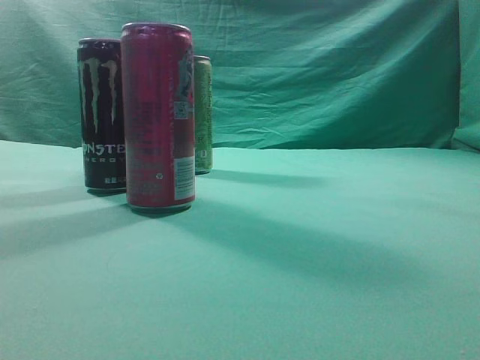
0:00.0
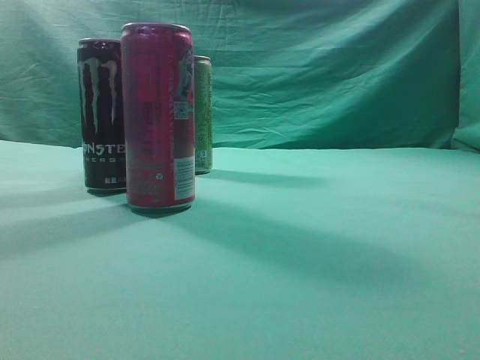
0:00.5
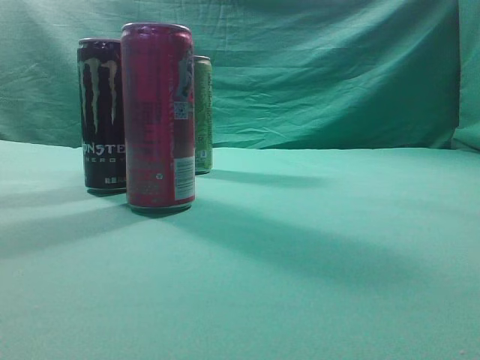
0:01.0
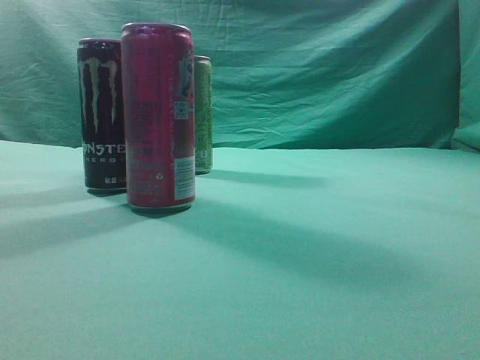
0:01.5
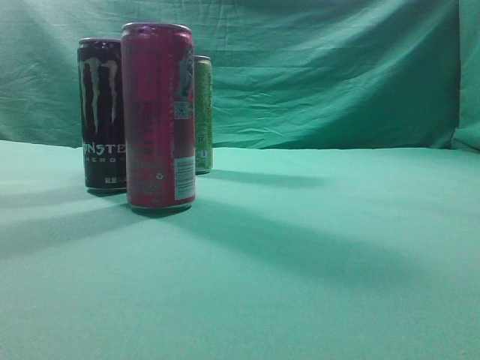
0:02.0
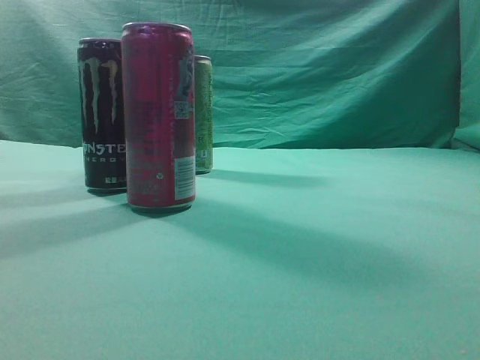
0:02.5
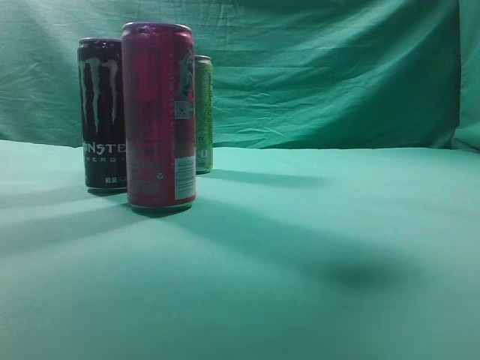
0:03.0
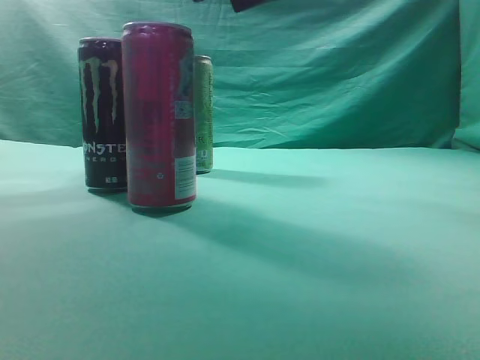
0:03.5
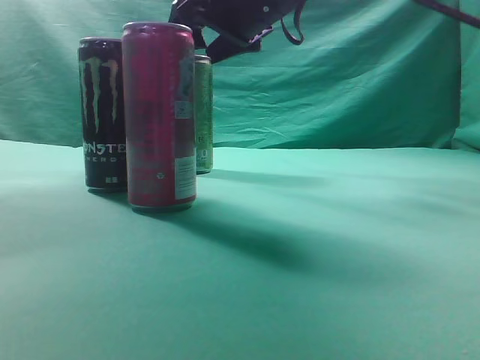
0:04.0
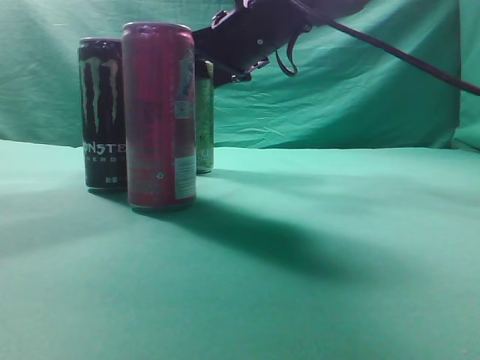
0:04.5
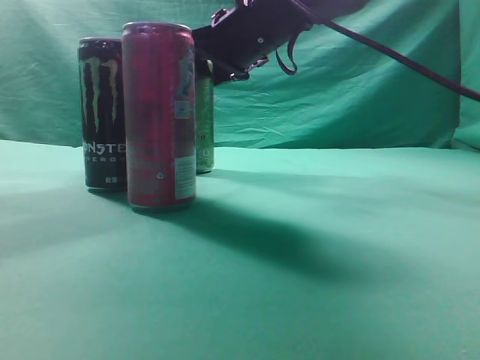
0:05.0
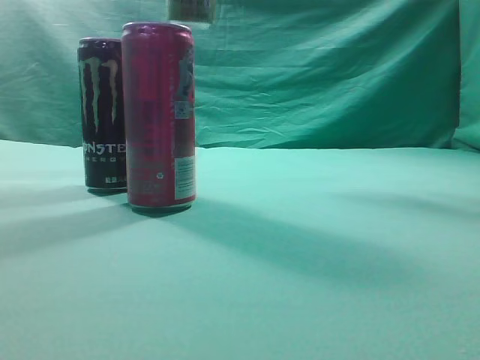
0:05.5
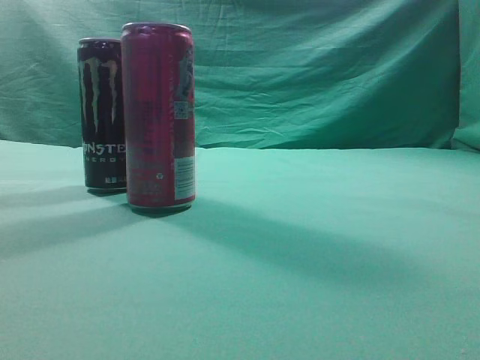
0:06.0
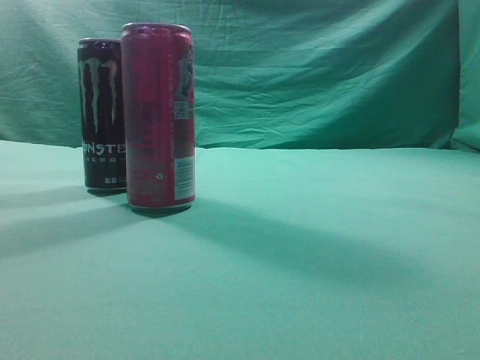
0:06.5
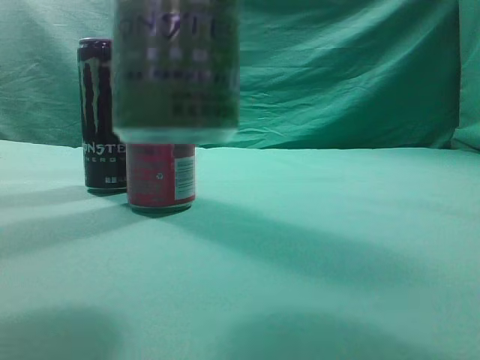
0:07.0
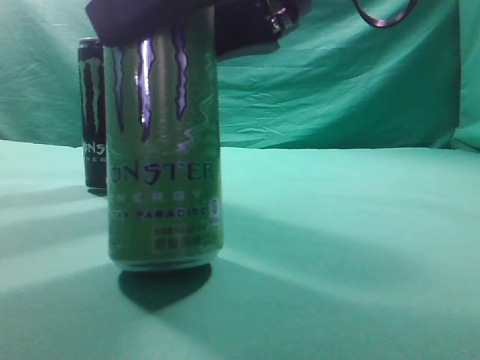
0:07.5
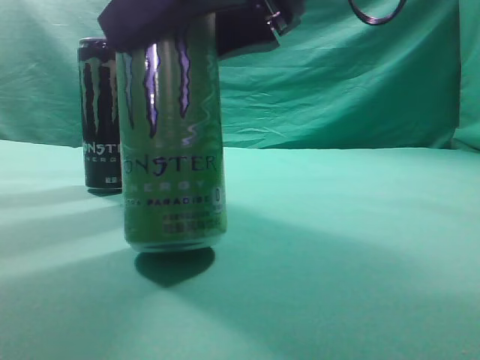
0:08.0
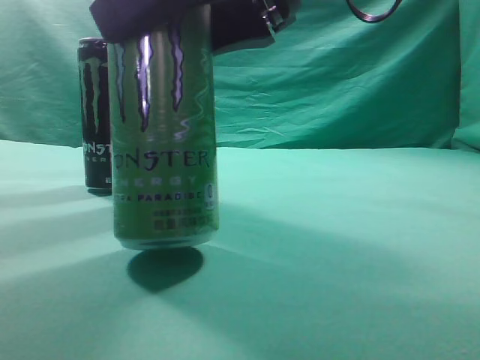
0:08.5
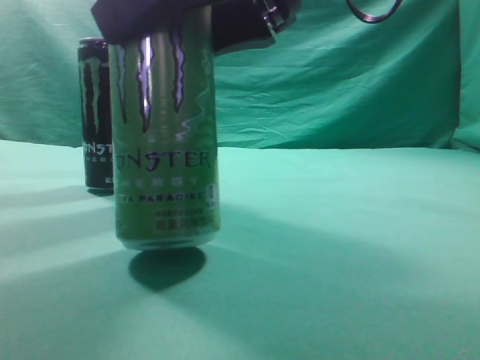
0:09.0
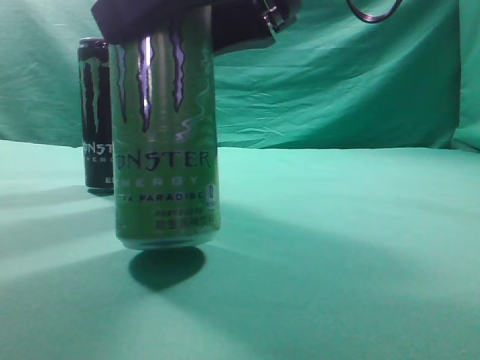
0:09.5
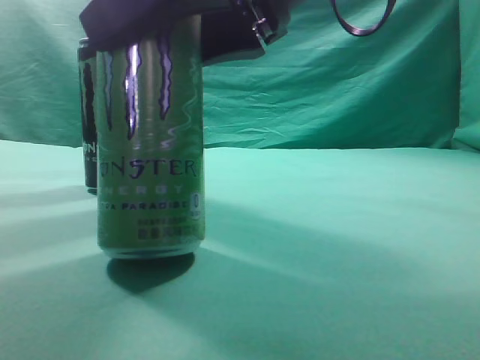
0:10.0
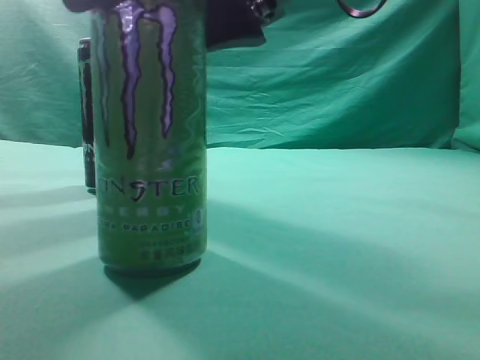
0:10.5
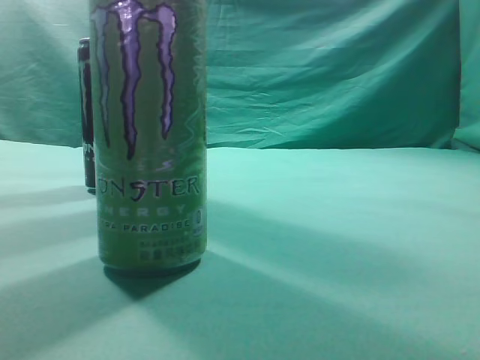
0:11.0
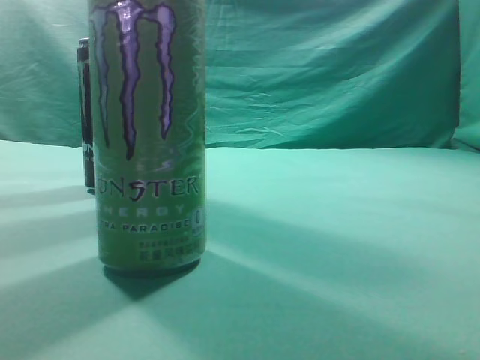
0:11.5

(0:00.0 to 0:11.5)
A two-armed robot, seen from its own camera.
Task of the whole recording: move one drink among three beverages.
Step, 0:00.0 - 0:06.5: Grasp the beverage bottle placed at the back of the desk.
Step, 0:07.0 - 0:10.5: Place the beverage bottle to the front of the table.
0:02.0 - 0:04.0: The right gripper is displaced forward and to the left by about 40 cm, and opens its fingers.
0:04.0 - 0:06.0: The right gripper travels upward and backward by some 25 cm.
0:06.0 - 0:07.5: The right gripper is displaced downward by about 20 cm.
0:07.5 - 0:09.5: The two grippers keep their place.
0:09.5 - 0:11.5: The right gripper heads upward and to the right, covering roughly 20 cm, and closes up.
